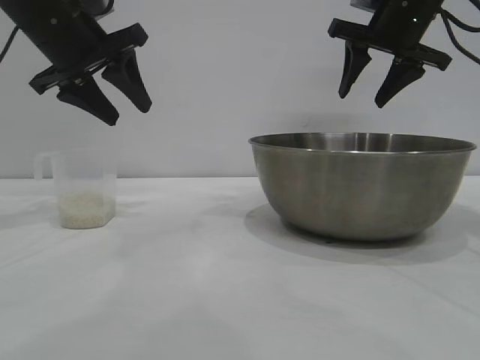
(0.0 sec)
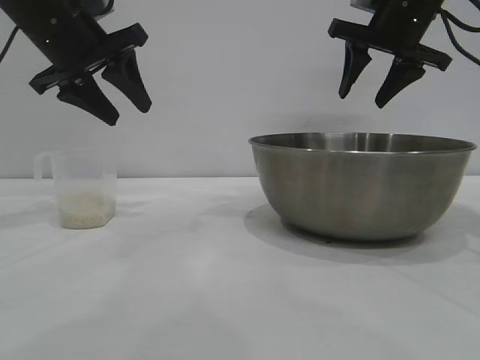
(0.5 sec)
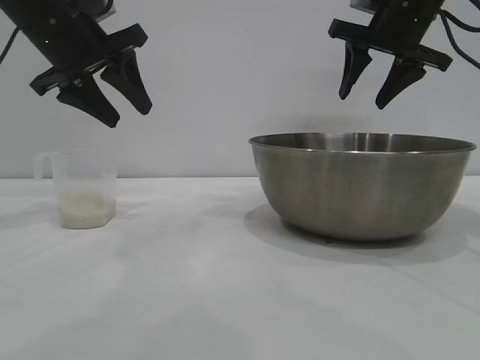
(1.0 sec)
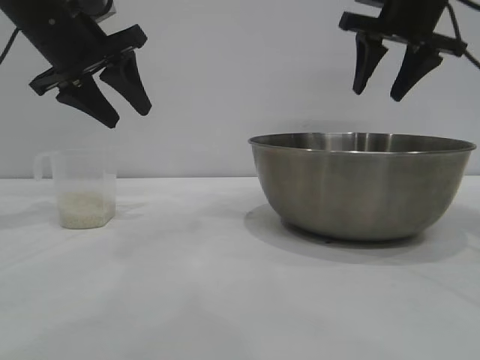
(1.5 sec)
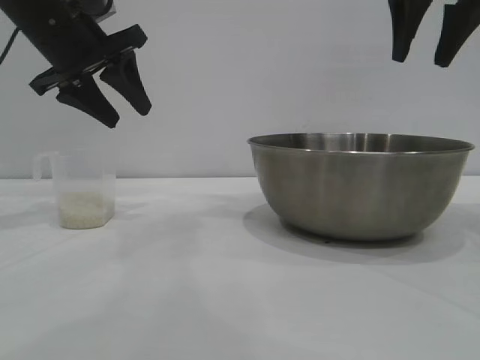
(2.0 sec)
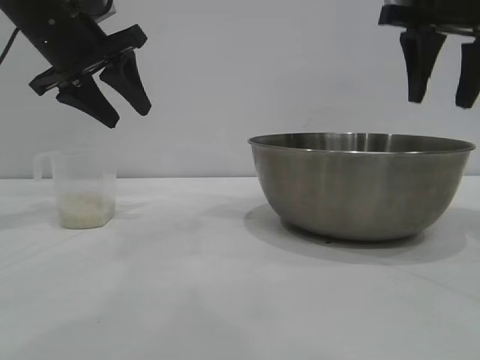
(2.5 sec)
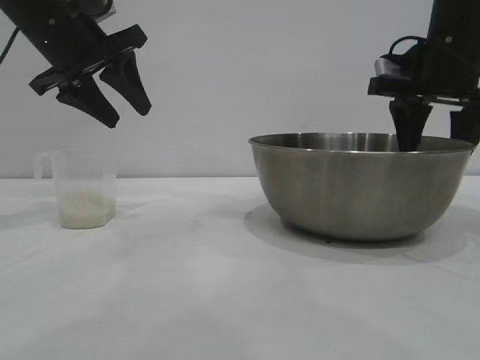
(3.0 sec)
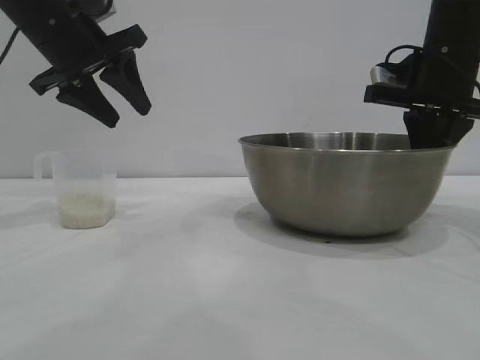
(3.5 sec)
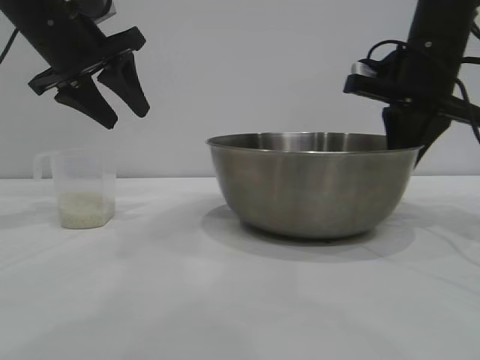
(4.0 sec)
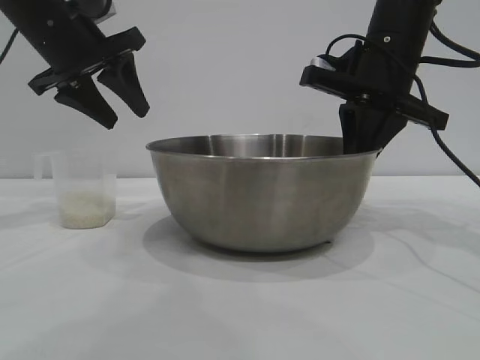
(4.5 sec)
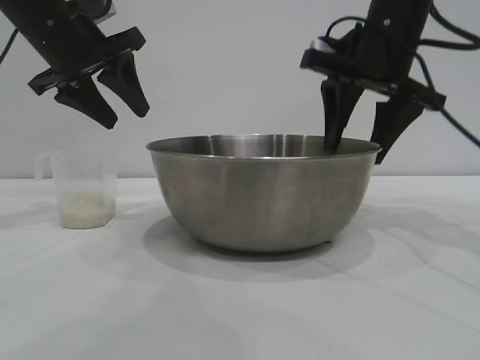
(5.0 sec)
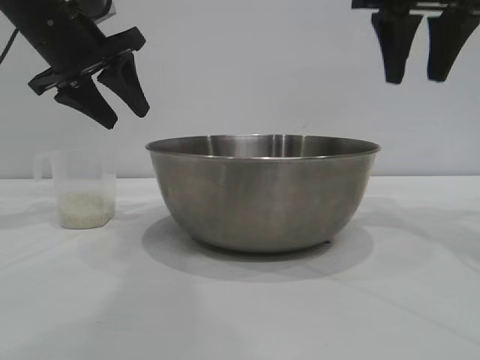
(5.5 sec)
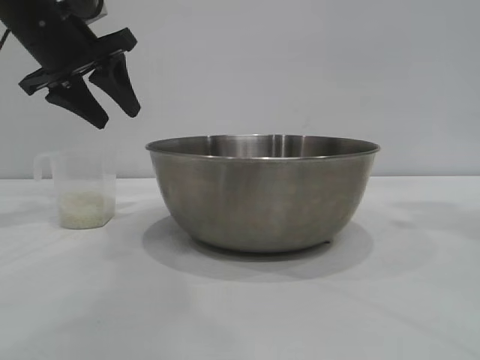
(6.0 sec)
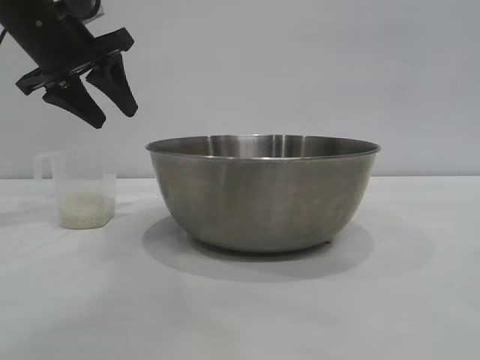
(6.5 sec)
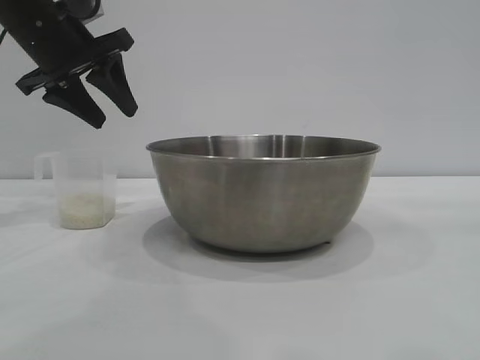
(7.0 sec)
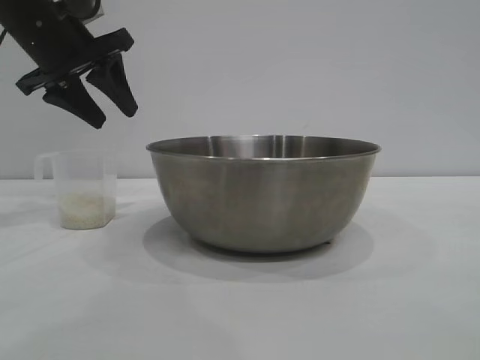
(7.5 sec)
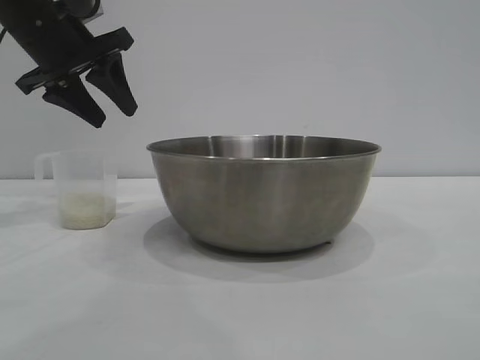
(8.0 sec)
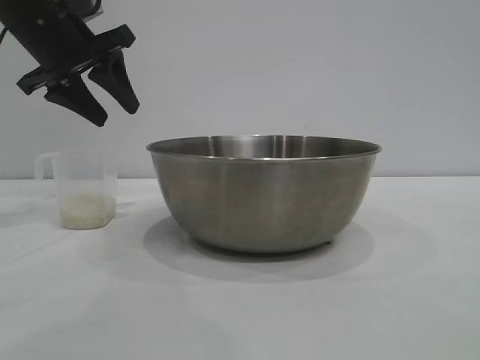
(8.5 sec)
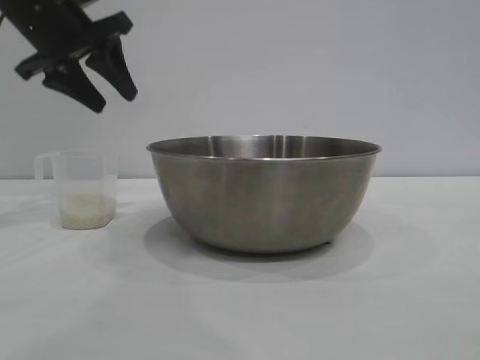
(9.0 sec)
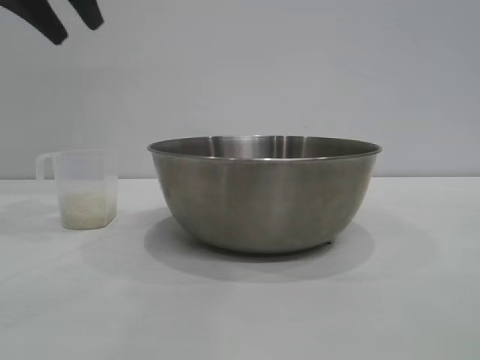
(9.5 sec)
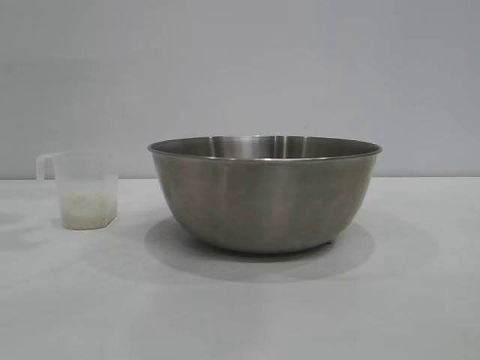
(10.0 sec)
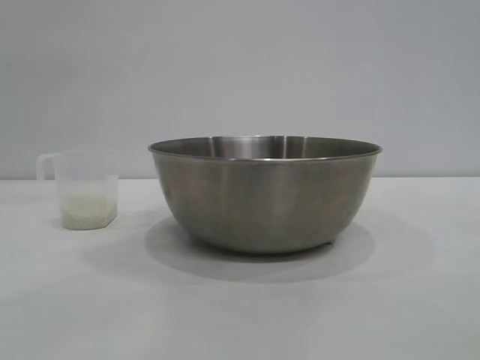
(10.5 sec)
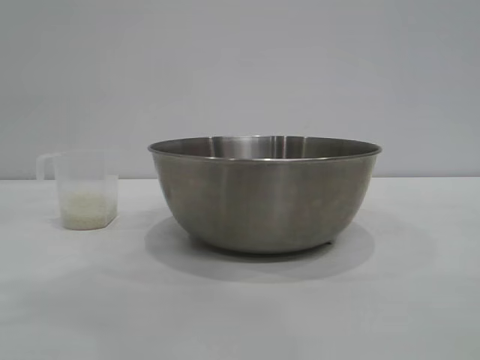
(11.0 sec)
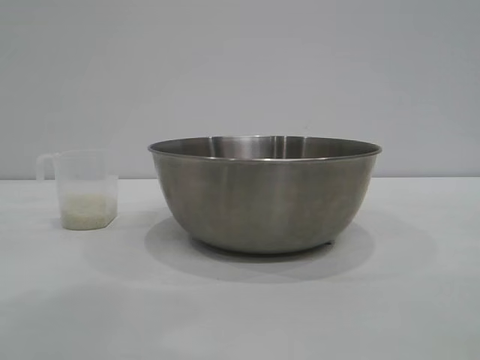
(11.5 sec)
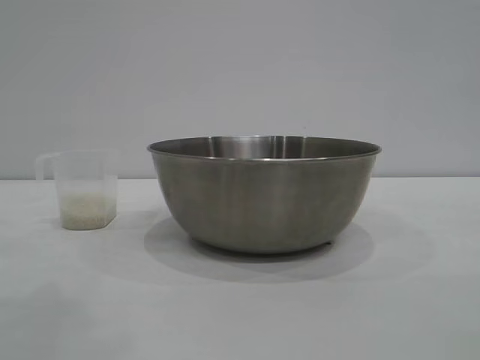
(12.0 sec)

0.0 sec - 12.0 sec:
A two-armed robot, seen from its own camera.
Task of the whole recording: the right gripper grasp the rice container and place it in the center of the table, the left gripper grasp the rice scoop and pour the rice into the rice container.
Step, 0.0 sec - 5.0 sec: Move the bowl to the center of view with the right gripper.

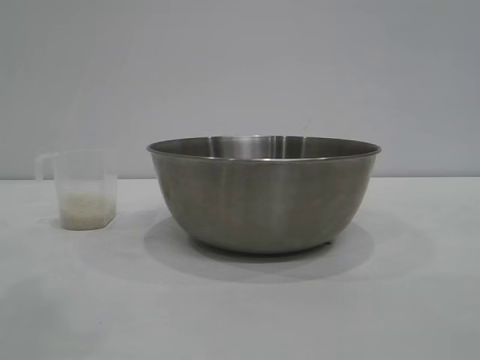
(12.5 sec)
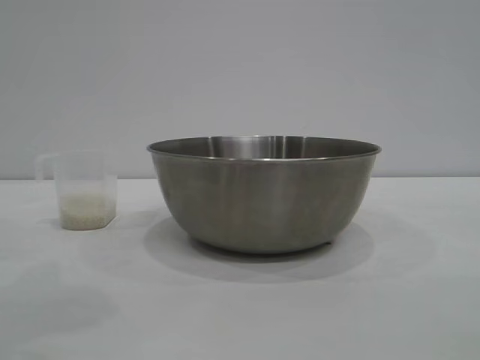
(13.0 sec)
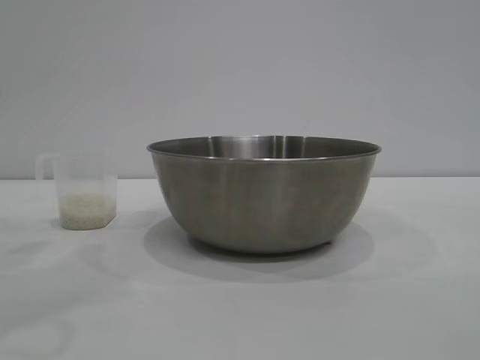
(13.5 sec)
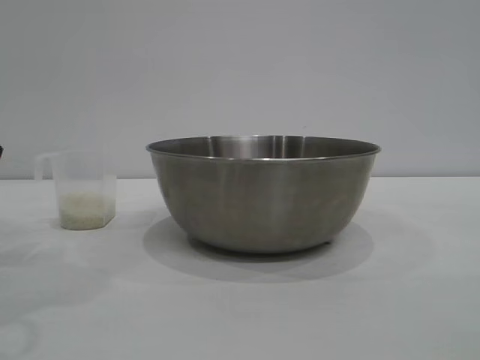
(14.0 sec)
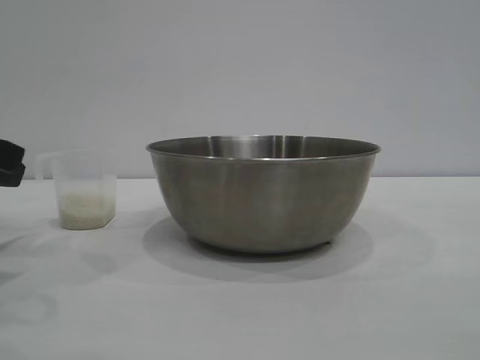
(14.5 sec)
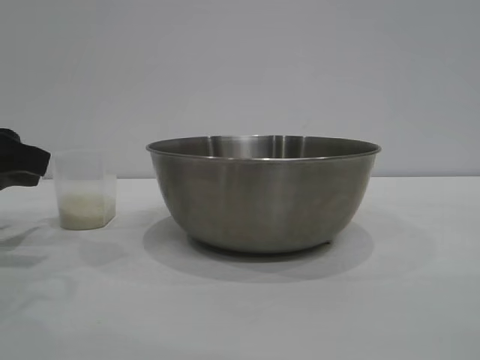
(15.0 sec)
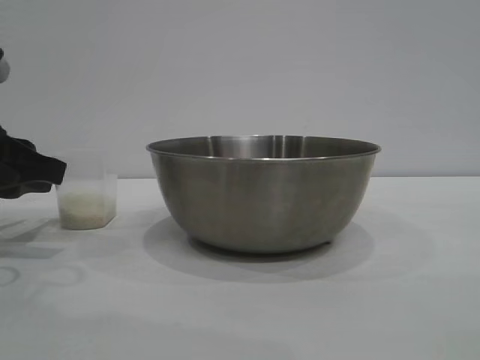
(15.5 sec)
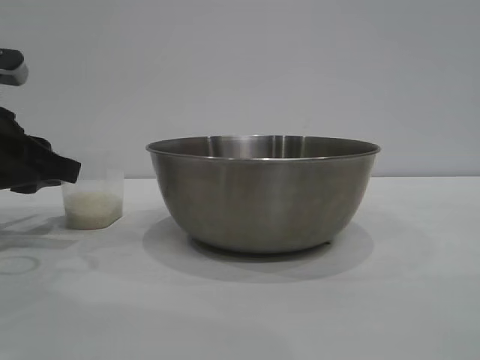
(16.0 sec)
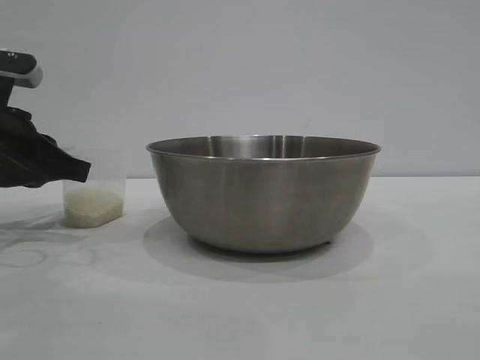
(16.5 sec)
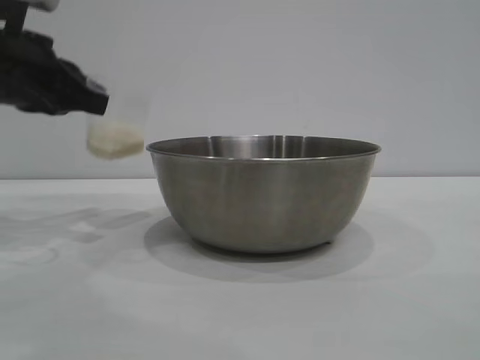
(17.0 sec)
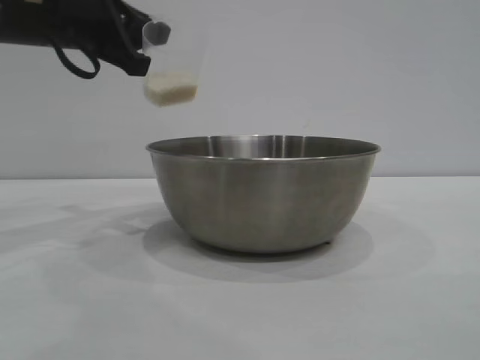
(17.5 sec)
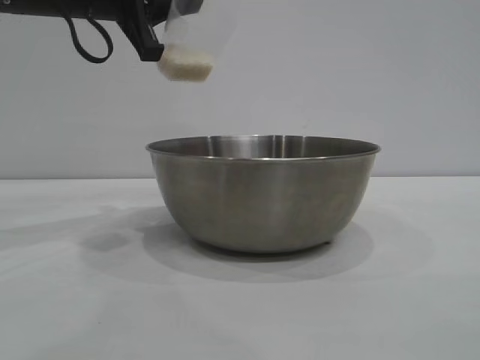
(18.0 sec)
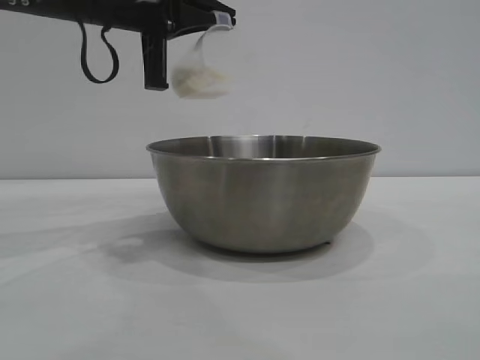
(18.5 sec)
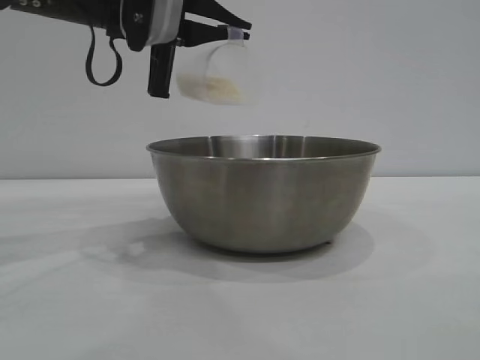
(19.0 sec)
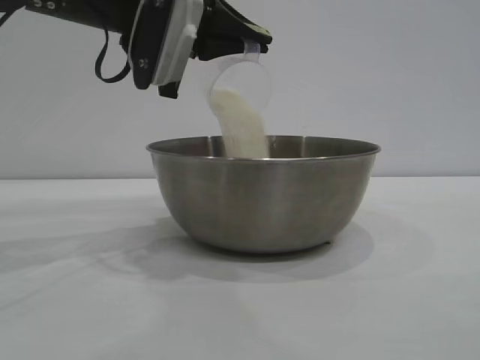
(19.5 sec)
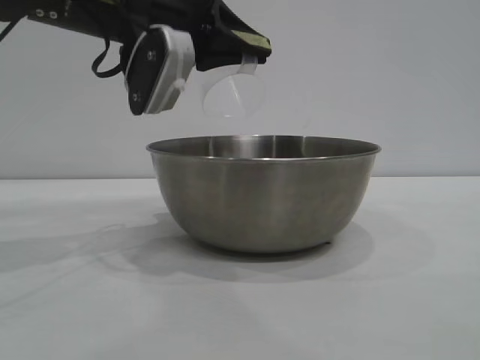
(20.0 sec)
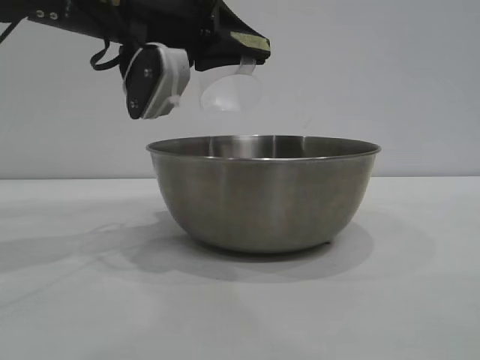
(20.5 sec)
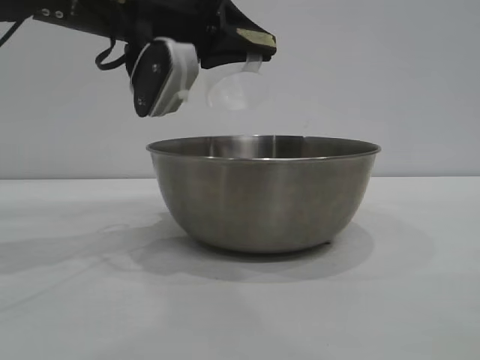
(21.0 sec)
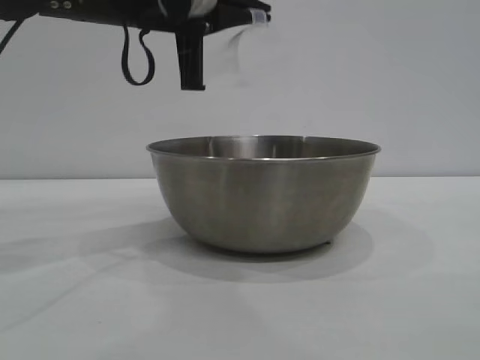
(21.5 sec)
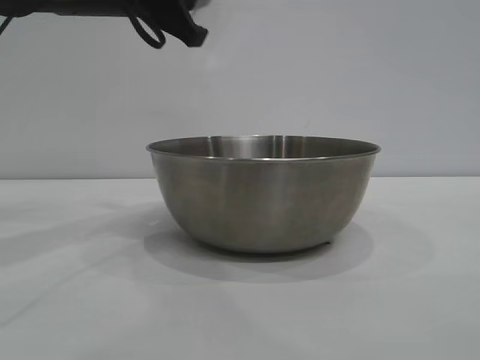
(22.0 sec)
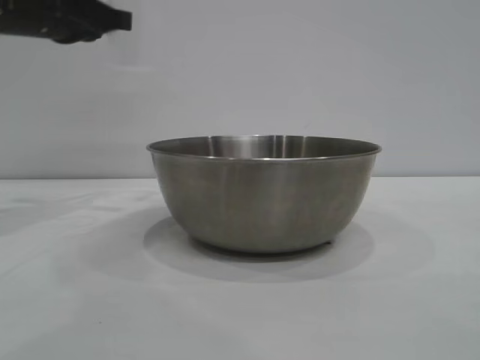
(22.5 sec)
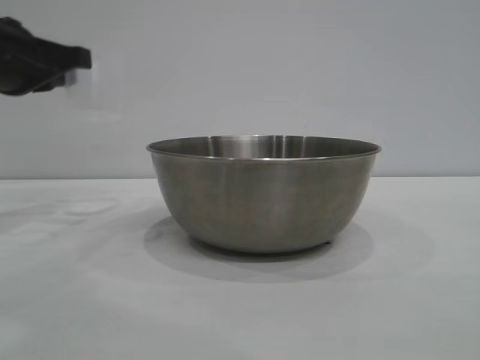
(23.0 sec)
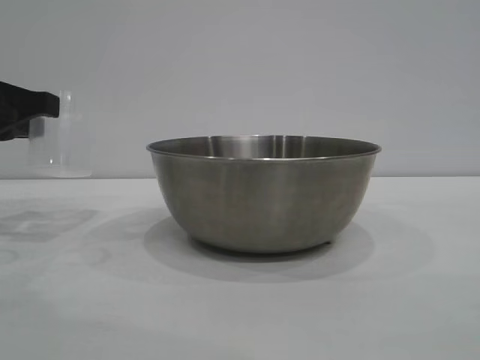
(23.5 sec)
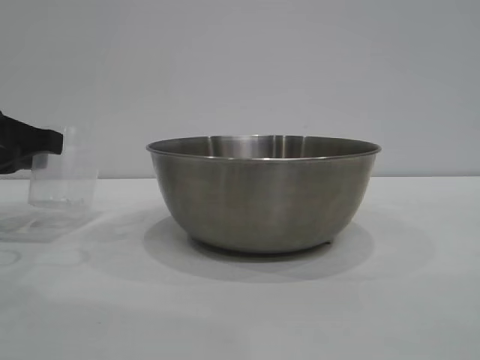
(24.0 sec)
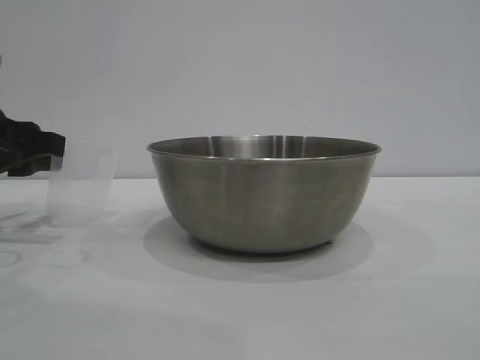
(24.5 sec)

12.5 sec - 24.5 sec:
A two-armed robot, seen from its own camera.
Task of the whole recording: the right gripper grasp the rice container and place it in the center of the table, the left gripper grasp the rice scoop and pour the rice into the rice container.
Step, 12.5 sec - 17.0 sec: Pick up the cup with rice in it with the left gripper.
Step, 17.5 sec - 21.5 sec: Pour the rice from the cup into the bowl with the left gripper.
